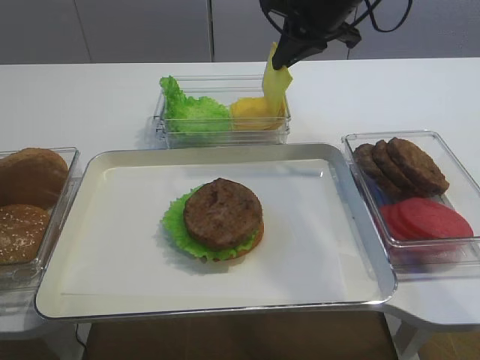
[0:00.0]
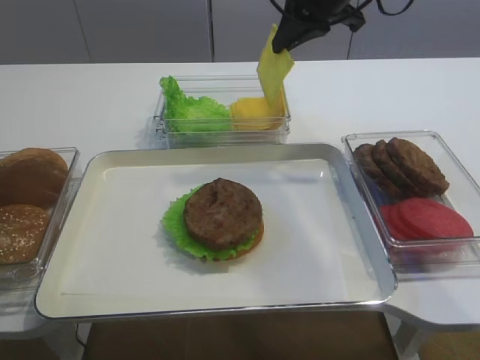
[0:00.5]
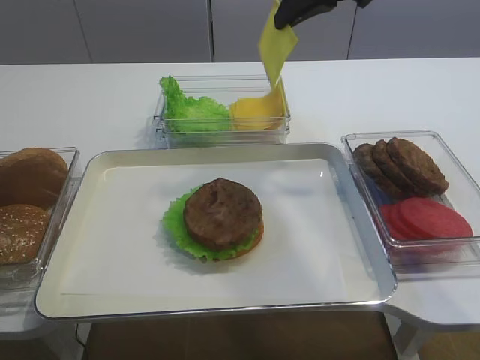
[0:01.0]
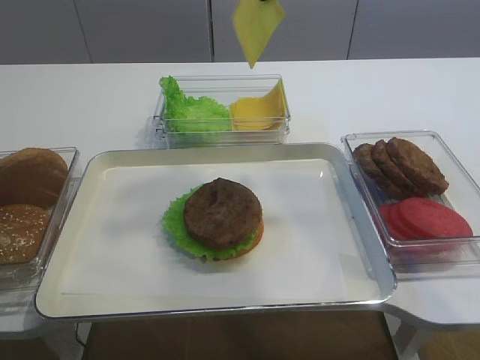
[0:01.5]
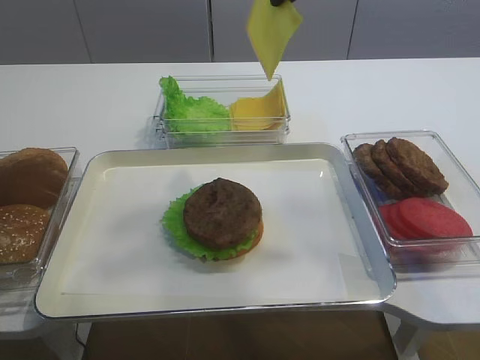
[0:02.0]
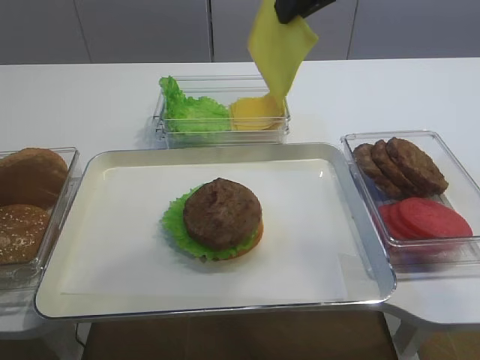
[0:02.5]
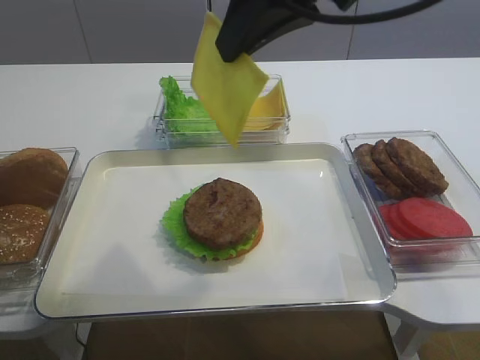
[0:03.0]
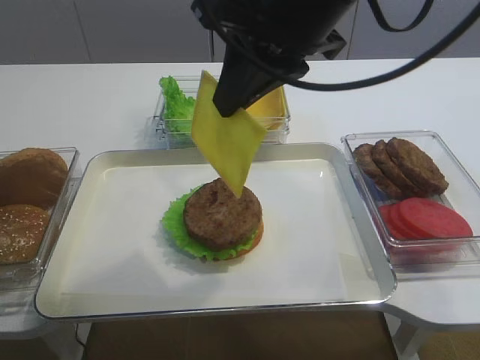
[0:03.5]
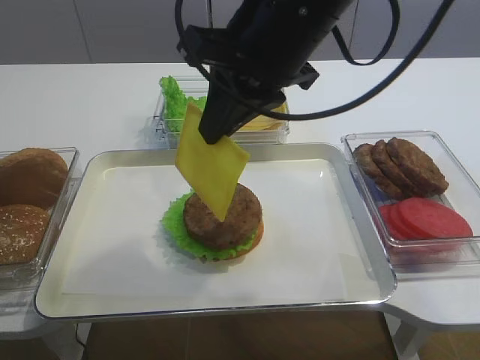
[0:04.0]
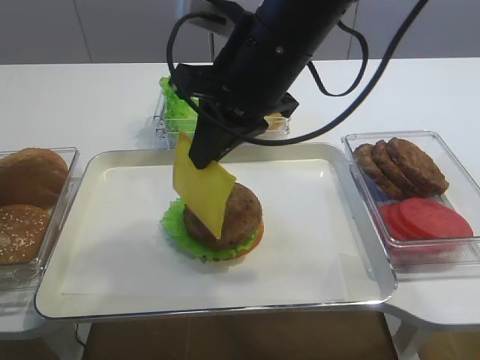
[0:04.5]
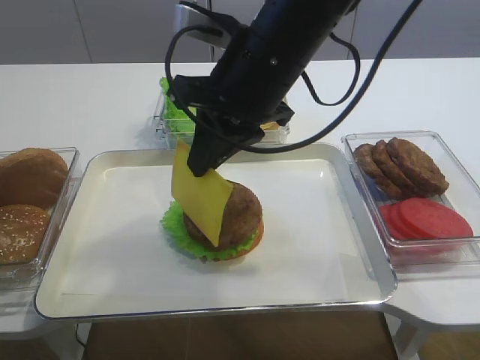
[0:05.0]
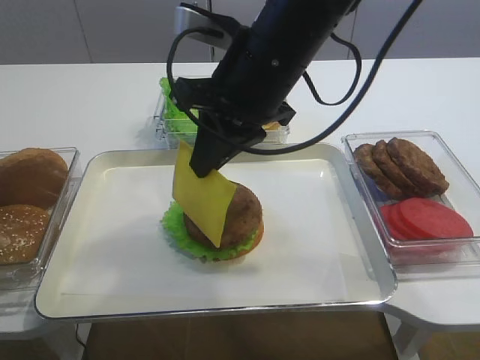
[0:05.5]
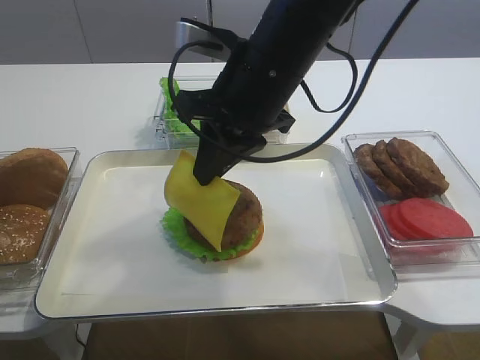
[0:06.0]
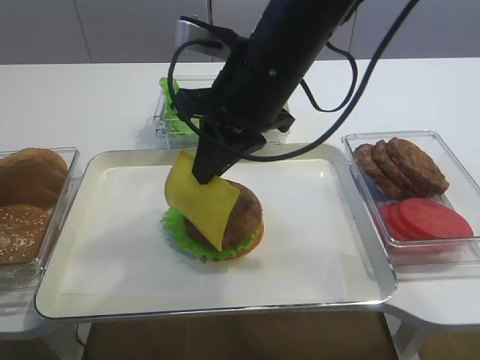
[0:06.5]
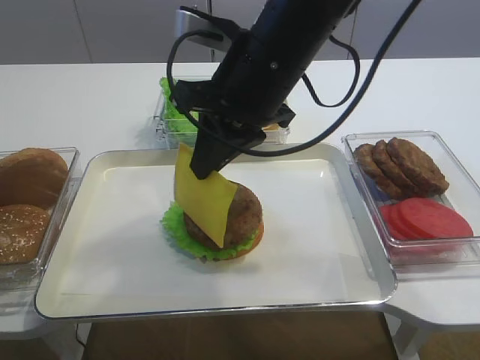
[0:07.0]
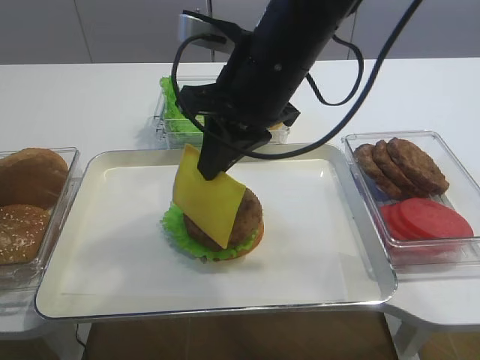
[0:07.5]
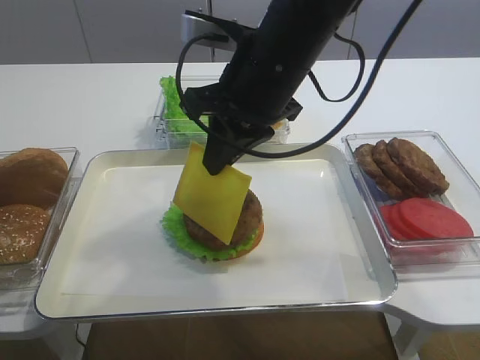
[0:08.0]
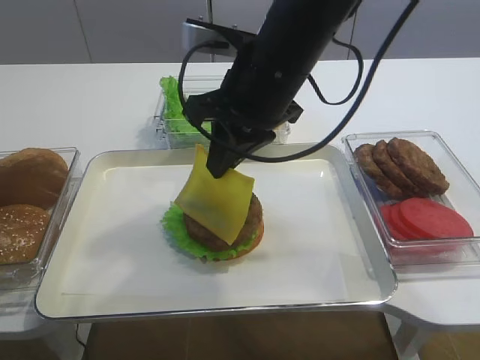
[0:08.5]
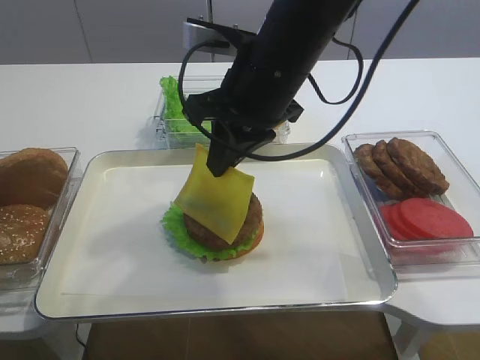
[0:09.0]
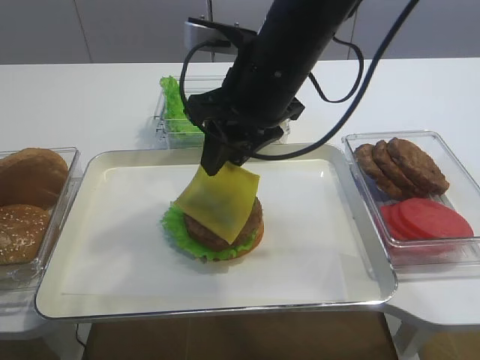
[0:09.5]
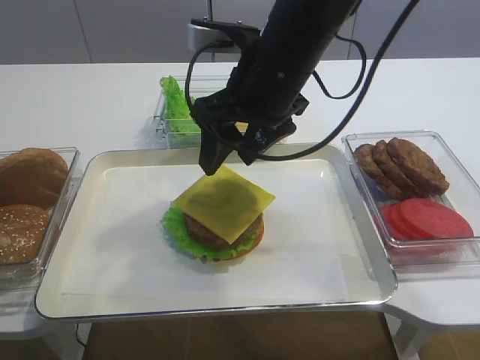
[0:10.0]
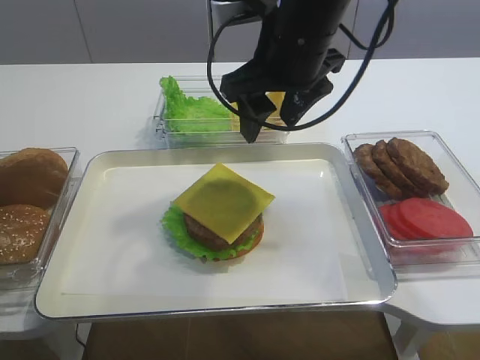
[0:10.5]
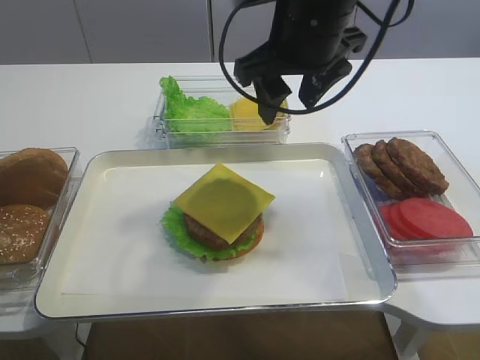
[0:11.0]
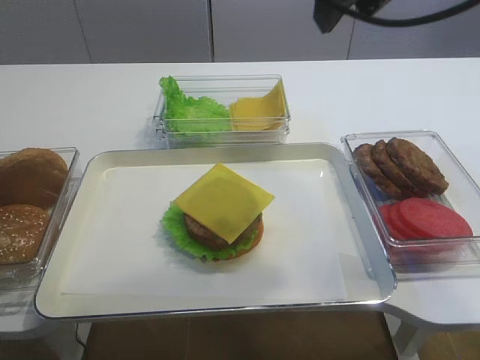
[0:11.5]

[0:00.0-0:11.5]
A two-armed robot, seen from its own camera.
Step, 0:00.0 to 0:10.0: Place the cheese slice on the cutlet with the right gripper.
0:00.0 to 0:02.0: The right gripper heads upward and backward, covering about 15 cm.
0:02.0 to 0:04.0: The right gripper is displaced backward, to the left and downward by roughly 10 cm.
0:04.0 to 0:06.0: The right gripper goes roughly 5 cm downward.
0:06.0 to 0:07.5: The two grippers keep their place.
0:07.5 to 0:09.5: The right gripper opens its fingers.
0:09.5 to 0:11.5: The right gripper heads upward and to the right, covering about 15 cm.

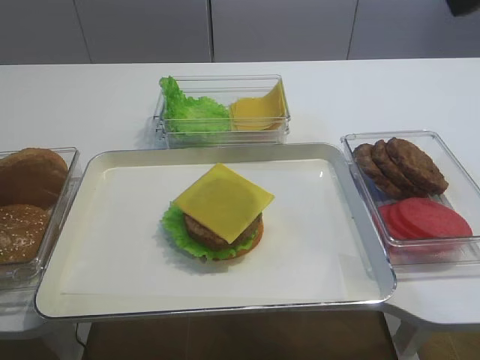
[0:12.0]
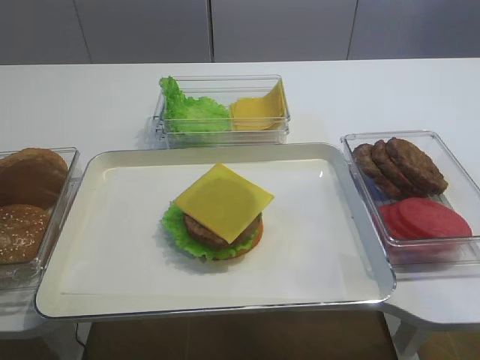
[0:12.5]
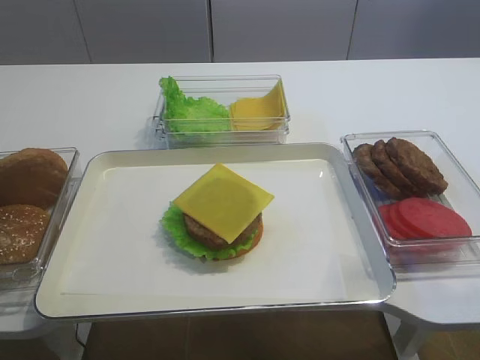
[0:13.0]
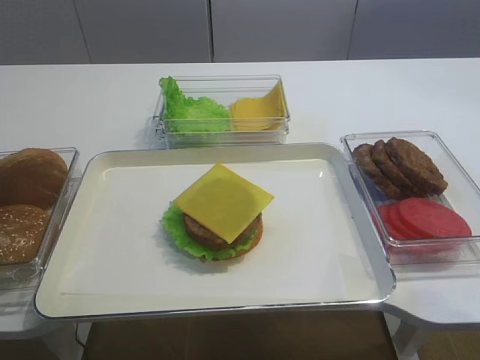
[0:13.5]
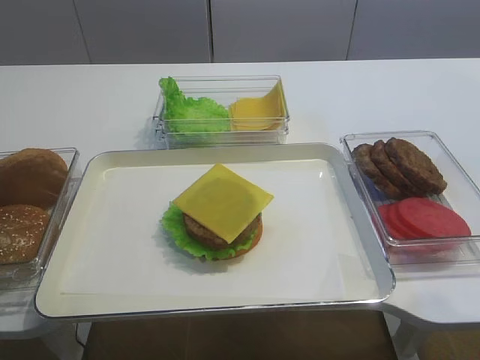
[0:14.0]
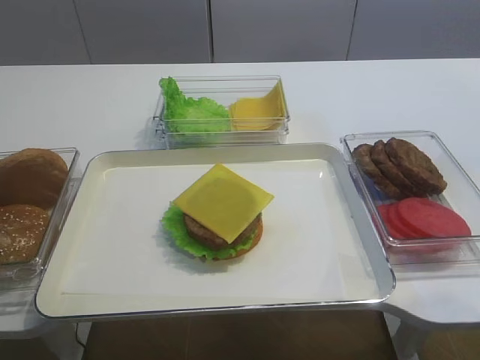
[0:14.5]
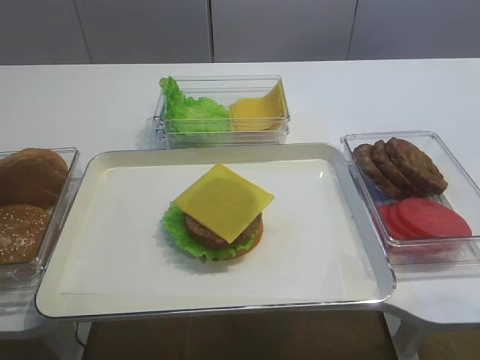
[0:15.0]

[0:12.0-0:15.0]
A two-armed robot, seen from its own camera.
0:12.0 to 0:13.5: The right gripper travels backward, downward and to the right by approximately 25 cm.

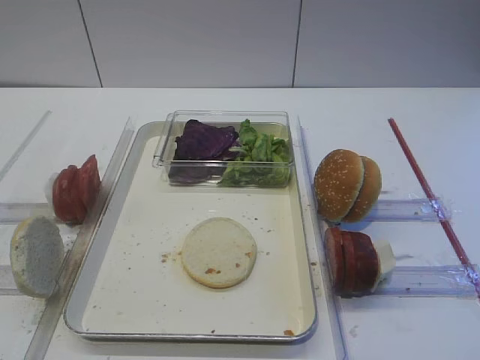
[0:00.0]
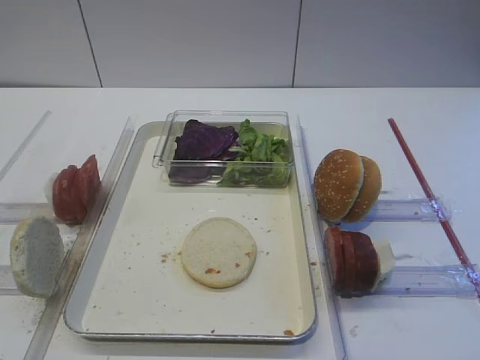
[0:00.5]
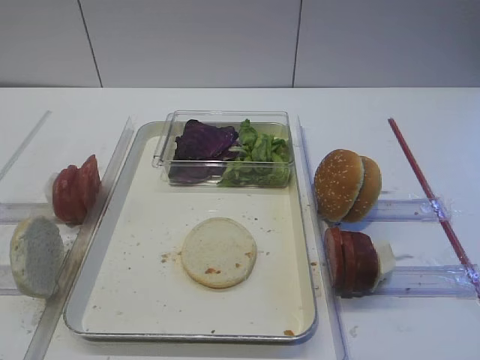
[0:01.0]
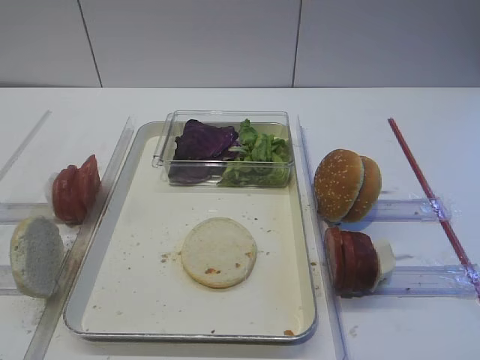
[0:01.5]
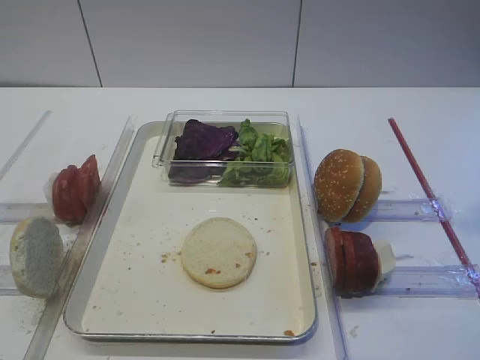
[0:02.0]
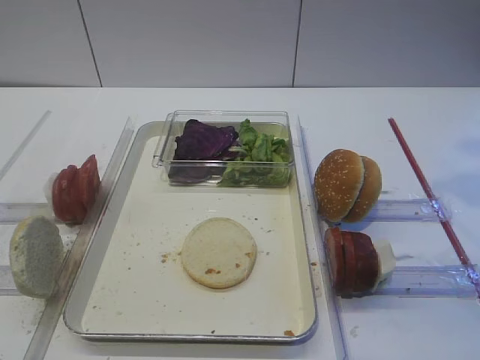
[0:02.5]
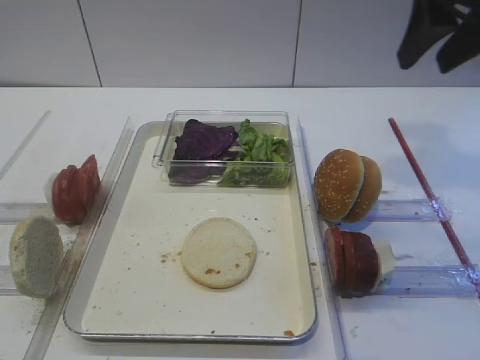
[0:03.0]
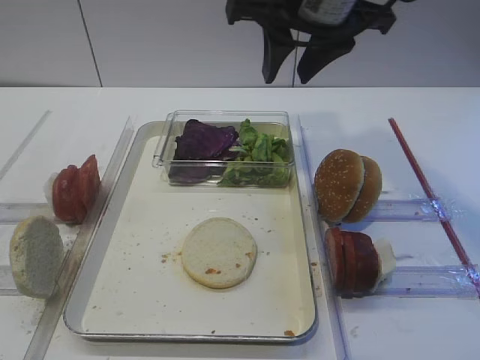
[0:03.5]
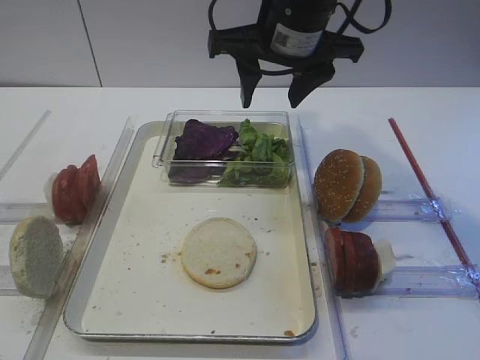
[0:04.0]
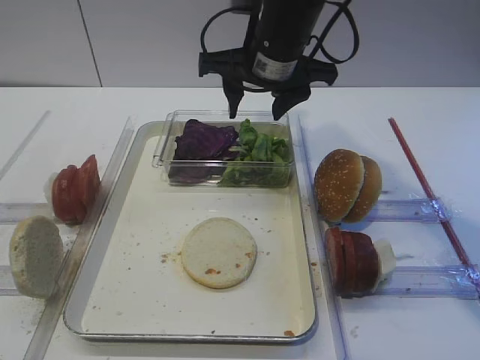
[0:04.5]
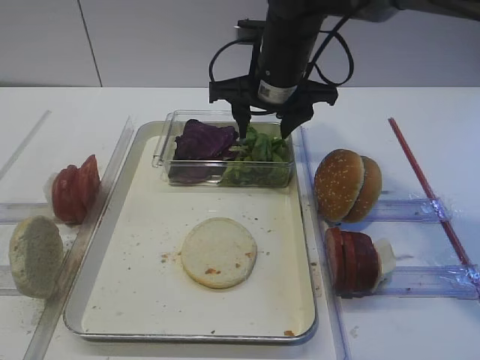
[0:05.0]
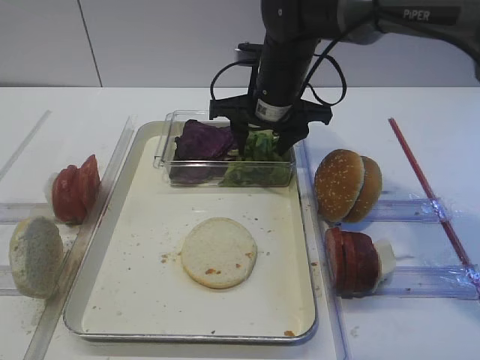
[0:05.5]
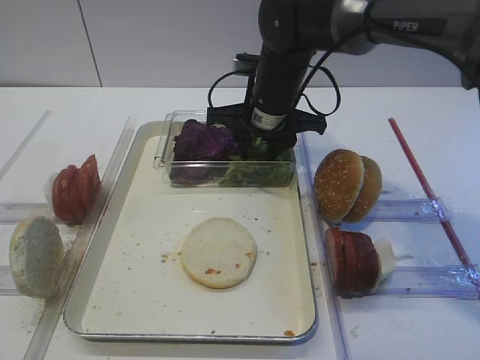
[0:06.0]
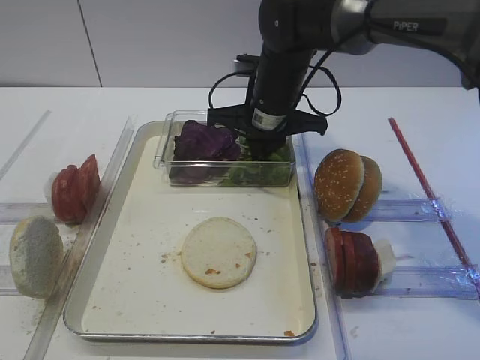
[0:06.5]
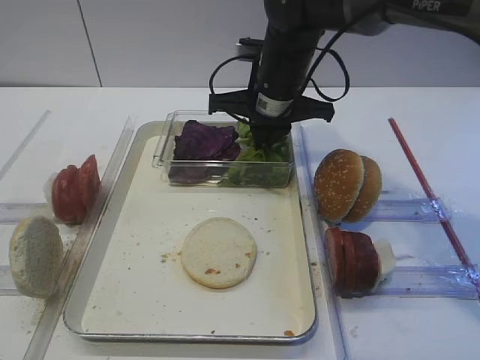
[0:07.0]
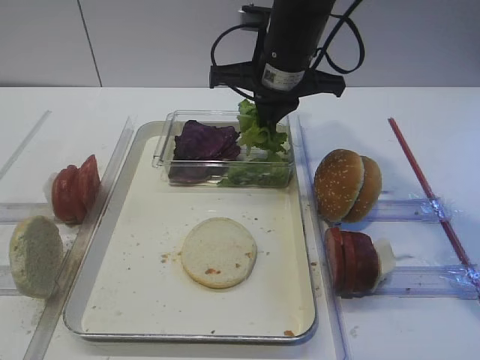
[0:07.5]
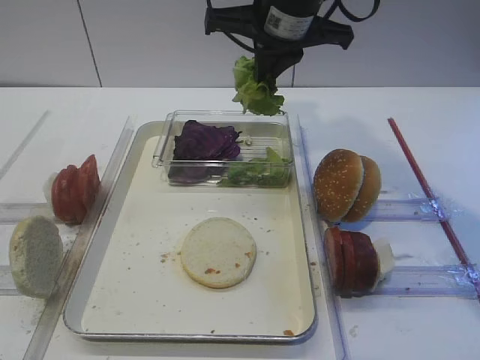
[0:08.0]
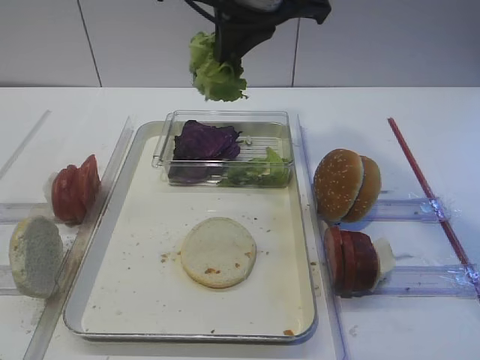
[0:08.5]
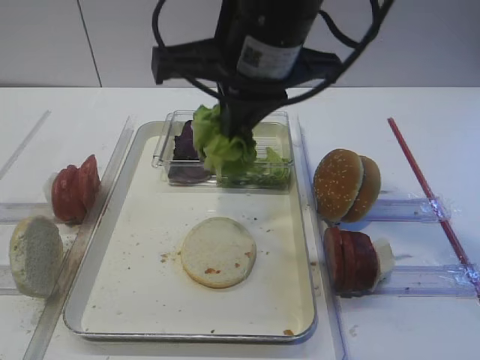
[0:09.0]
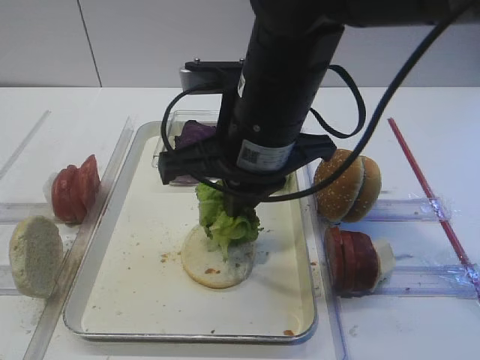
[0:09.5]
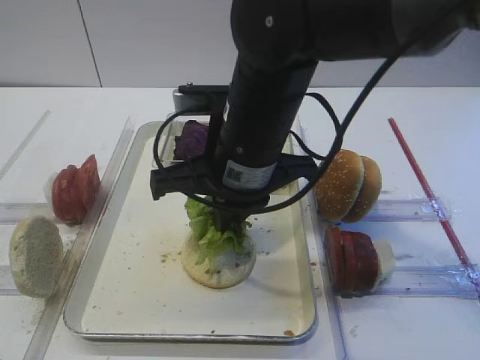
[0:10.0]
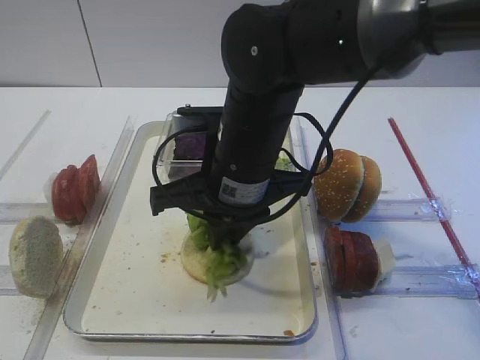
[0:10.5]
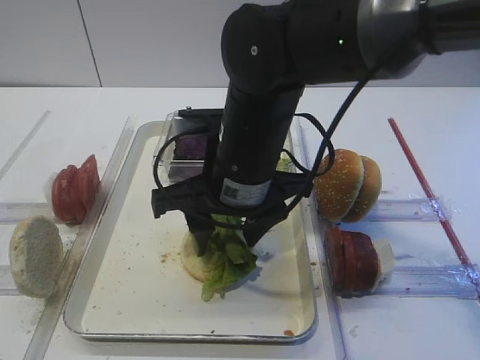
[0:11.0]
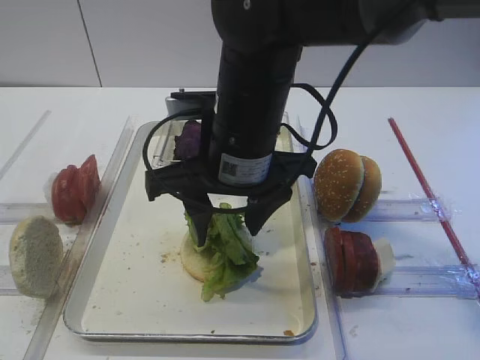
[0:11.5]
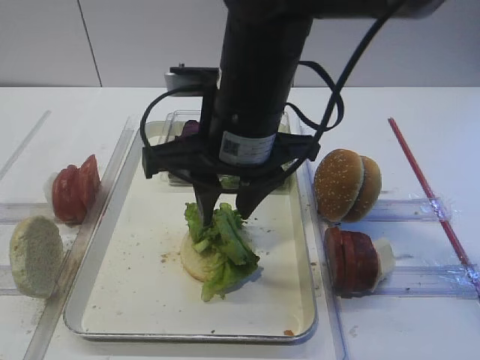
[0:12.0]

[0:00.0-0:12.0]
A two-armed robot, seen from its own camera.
Step, 0:00.0 to 0:07.5: Pick up the lettuce leaf with the right gripper.
Step, 0:08.0 to 0:11.5: Place the lettuce leaf on the bread slice with the right gripper.
0:02.0 to 0:04.0: The right gripper heads to the left and forward, covering approximately 30 cm, and opens up.
0:04.0 to 0:06.0: The right gripper shifts about 15 cm downward and forward.
0:06.0 to 0:08.0: The right gripper is displaced upward by some 15 cm, and closes its fingers.
0:08.0 to 0:10.0: The right gripper moves backward and downward, about 15 cm.
0:10.0 to 0:12.0: The right gripper opens up.
